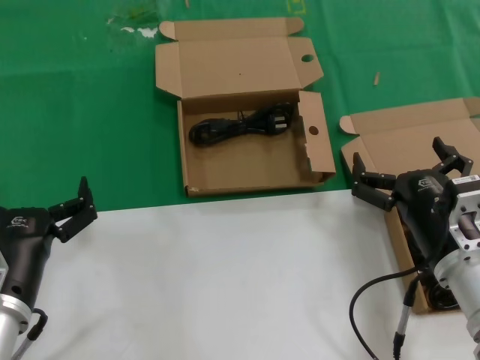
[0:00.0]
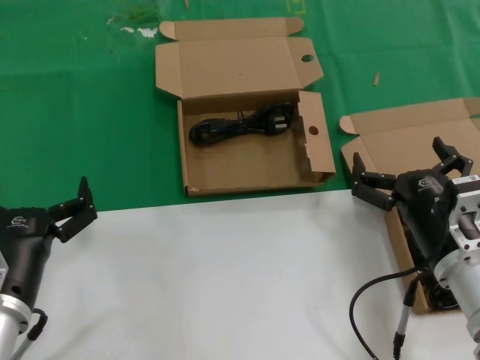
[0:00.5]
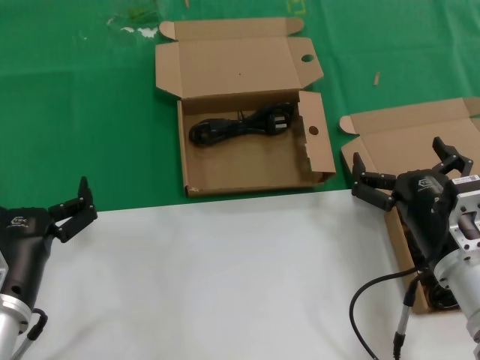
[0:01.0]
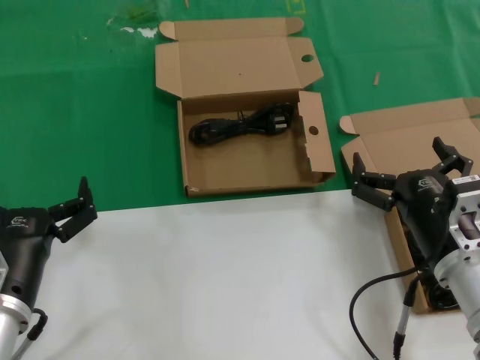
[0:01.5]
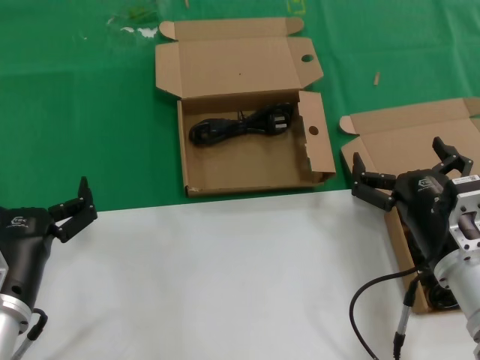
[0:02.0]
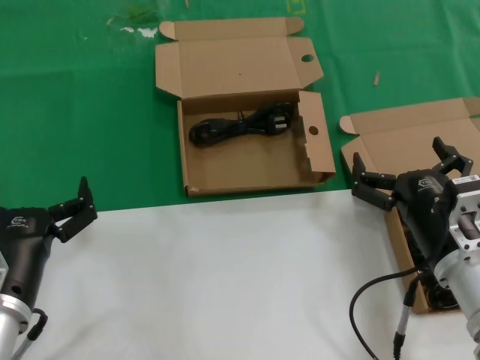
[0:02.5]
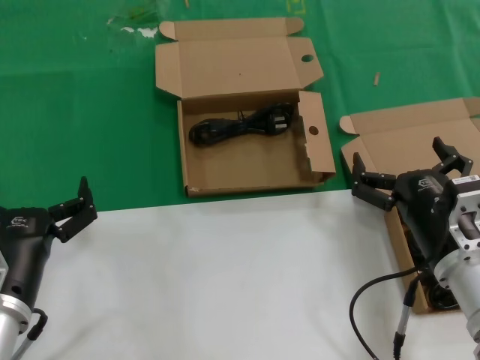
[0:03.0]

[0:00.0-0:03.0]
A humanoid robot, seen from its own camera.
Task of the whole recording: take the parts from the box containing them and put them into an empty box.
0:00.0 to 0:03.0: Neither hand changes place.
